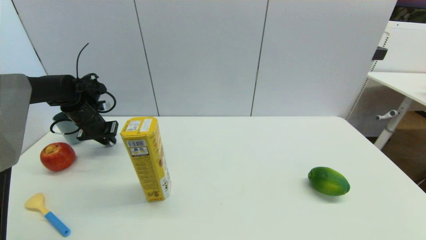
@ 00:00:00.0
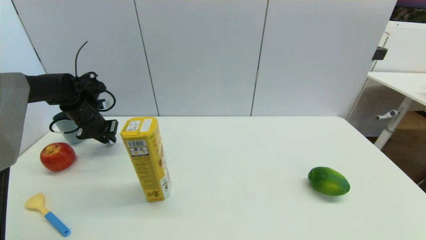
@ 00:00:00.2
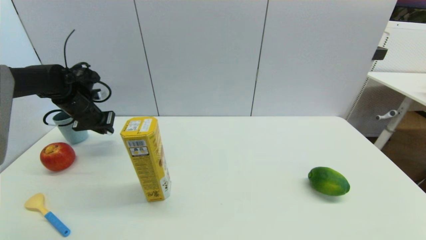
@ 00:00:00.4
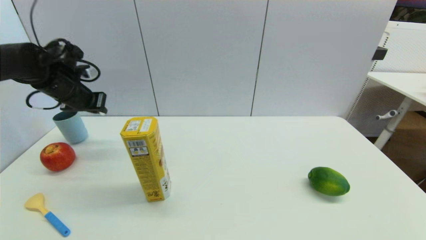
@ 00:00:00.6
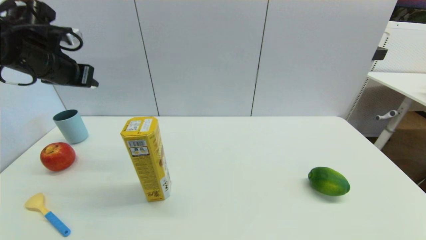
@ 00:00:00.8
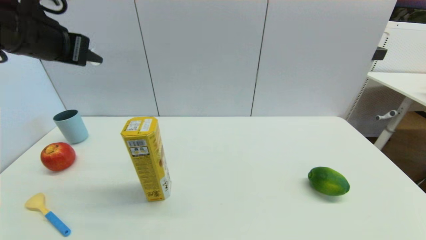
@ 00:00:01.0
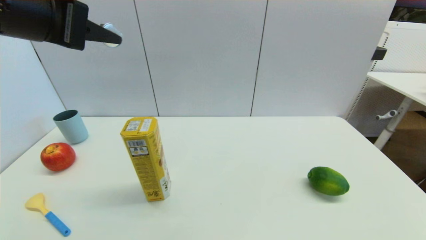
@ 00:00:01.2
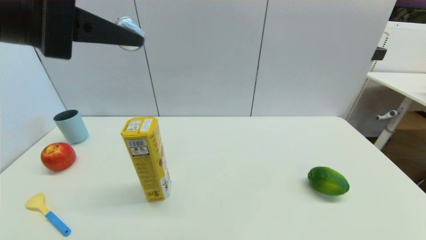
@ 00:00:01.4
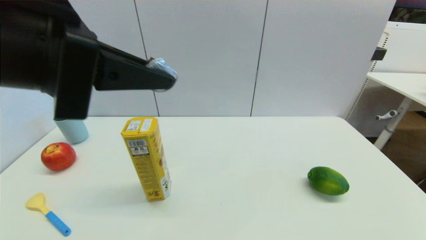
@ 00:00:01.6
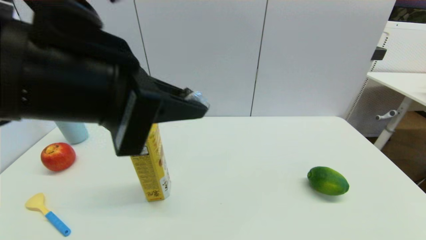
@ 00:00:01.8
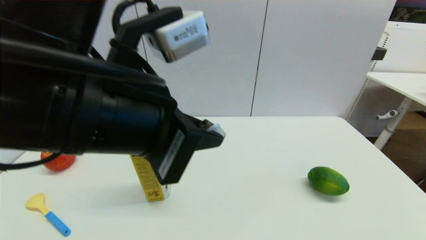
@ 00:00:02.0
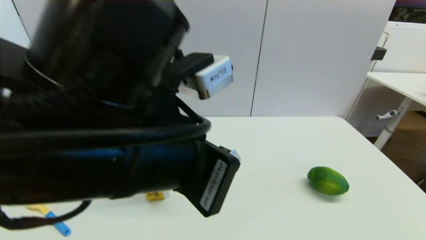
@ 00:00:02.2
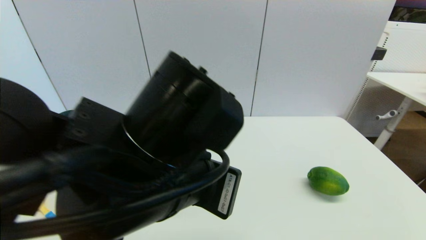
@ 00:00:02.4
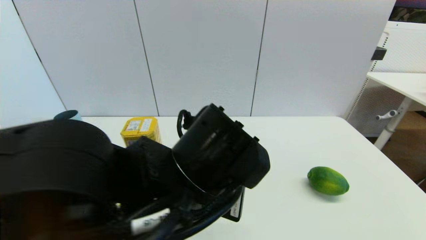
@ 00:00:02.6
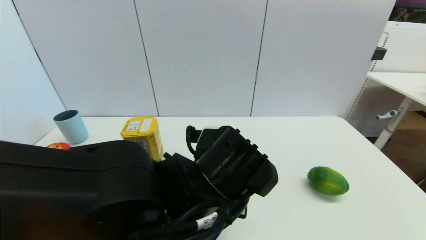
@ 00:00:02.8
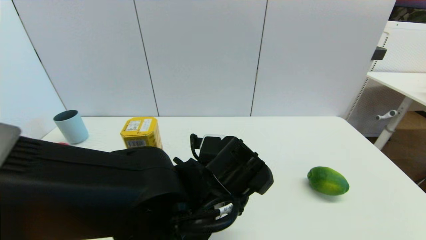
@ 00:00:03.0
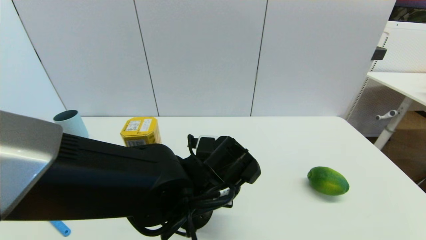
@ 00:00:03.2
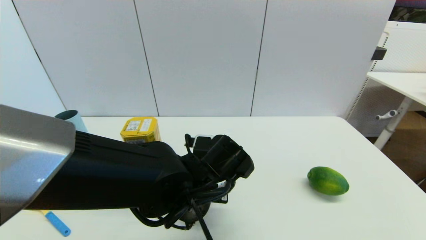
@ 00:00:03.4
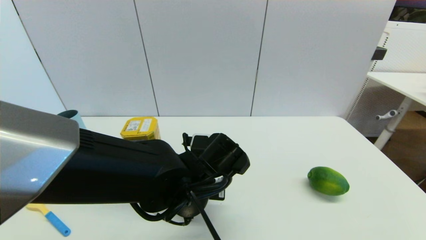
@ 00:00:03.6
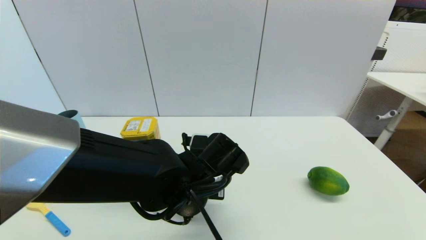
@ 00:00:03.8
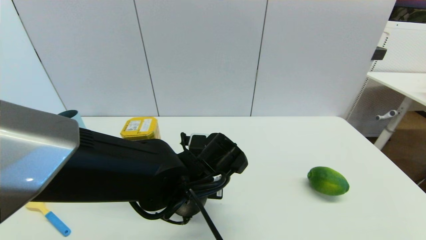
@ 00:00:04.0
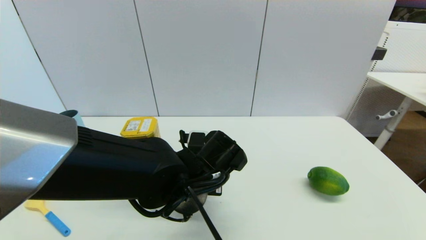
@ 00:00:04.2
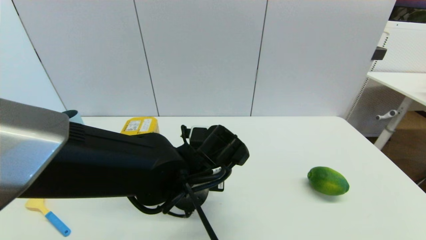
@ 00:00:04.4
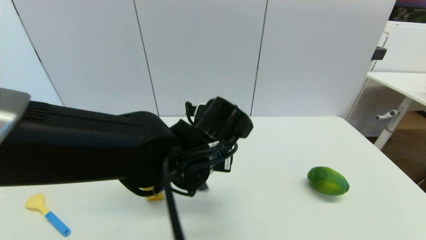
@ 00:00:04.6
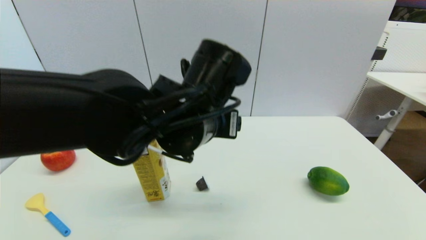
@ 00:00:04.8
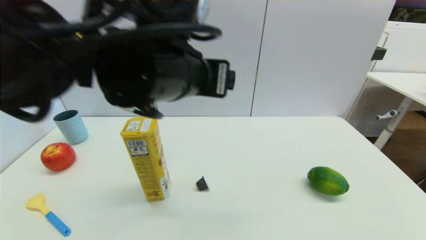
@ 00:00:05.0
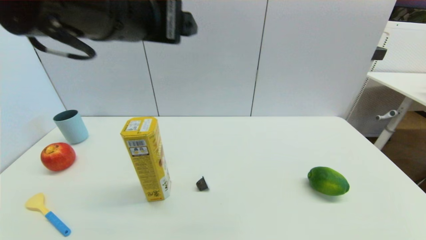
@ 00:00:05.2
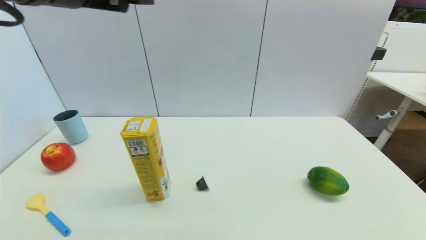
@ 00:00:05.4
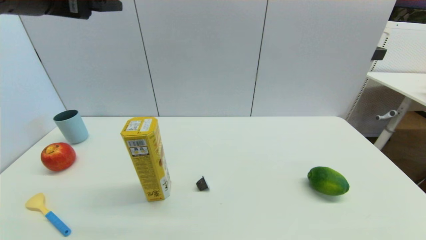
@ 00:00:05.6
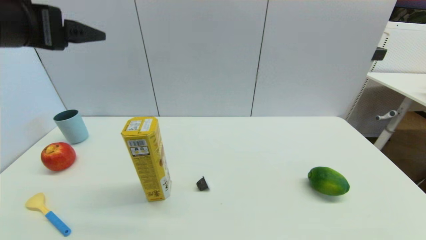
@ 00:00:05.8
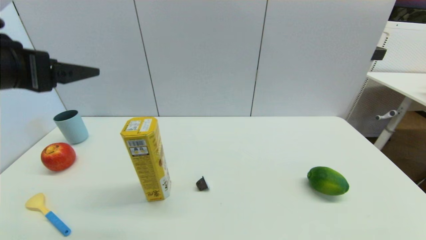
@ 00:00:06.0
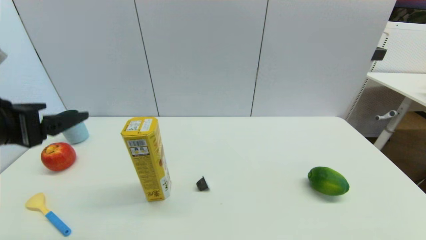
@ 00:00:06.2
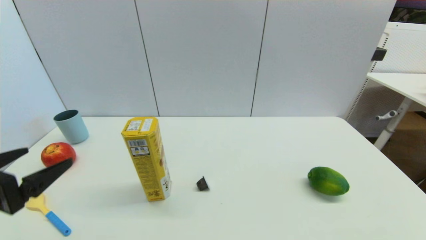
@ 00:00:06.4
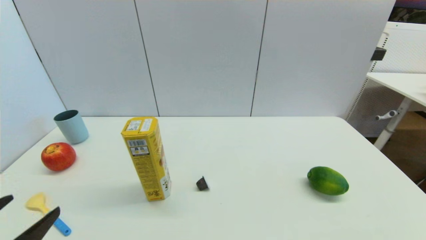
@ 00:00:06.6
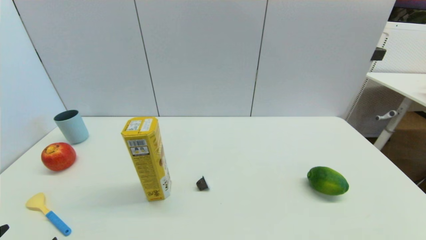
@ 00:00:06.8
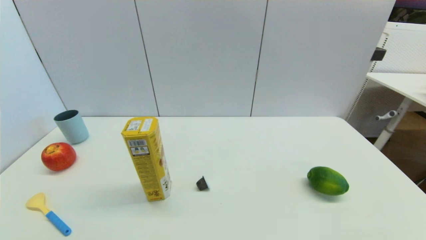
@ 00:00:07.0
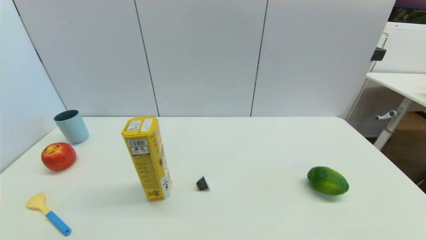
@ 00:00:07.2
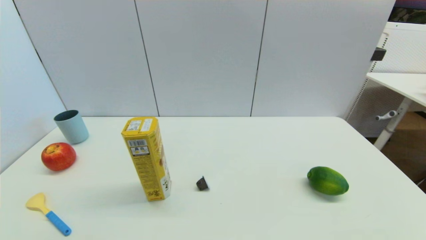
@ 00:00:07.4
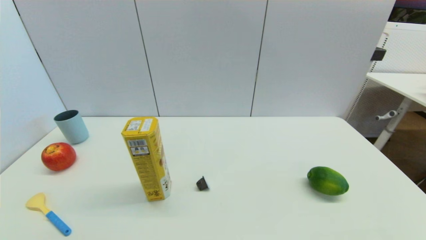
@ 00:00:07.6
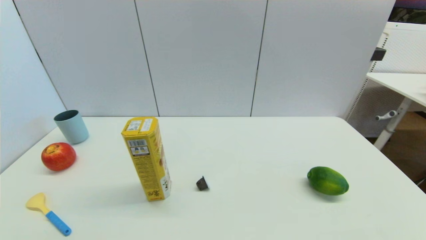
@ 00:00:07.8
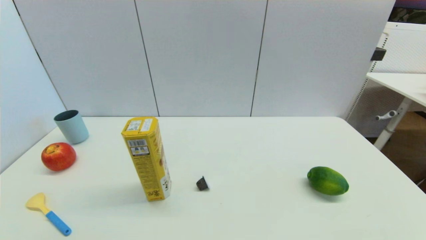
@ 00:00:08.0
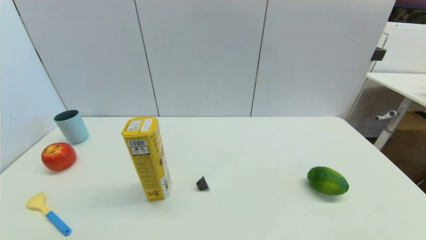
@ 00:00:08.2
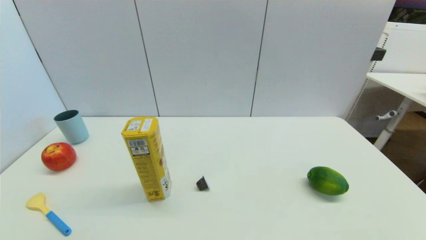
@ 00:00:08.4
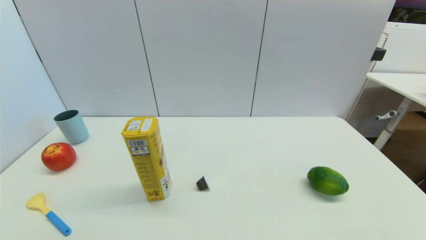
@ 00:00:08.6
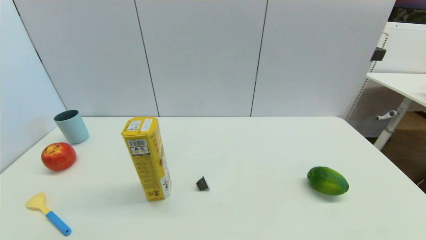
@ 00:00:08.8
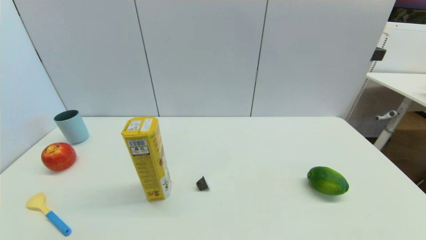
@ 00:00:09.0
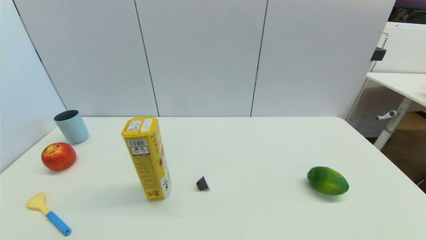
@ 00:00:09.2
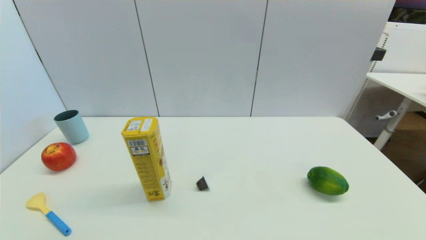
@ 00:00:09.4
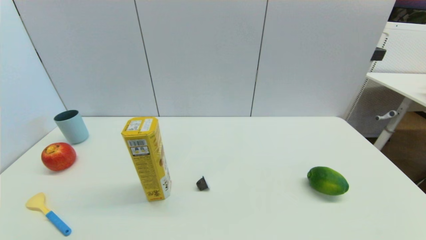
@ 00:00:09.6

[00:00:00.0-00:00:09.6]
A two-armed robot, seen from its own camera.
Step, 00:00:00.4 to 00:00:04.0: Place the coffee capsule on the table with left gripper.
00:00:00.0 to 00:00:01.6: The left gripper shifts roughly 40 cm backward, upward and to the right.
00:00:01.6 to 00:00:03.2: The left gripper is displaced downward and to the right by about 30 cm.
00:00:03.2 to 00:00:04.8: The left gripper shifts about 10 cm upward, and opens its fingers.
00:00:04.8 to 00:00:06.4: The left gripper heads to the left and backward, covering roughly 30 cm.
00:00:06.4 to 00:00:08.0: The left gripper goes roughly 20 cm downward and backward.
